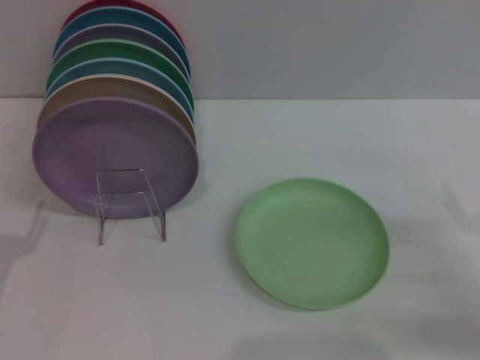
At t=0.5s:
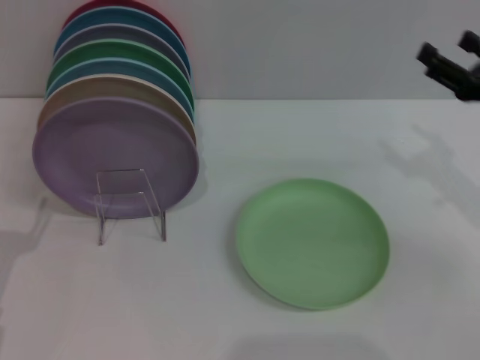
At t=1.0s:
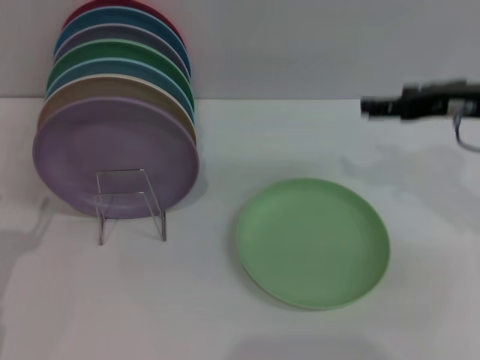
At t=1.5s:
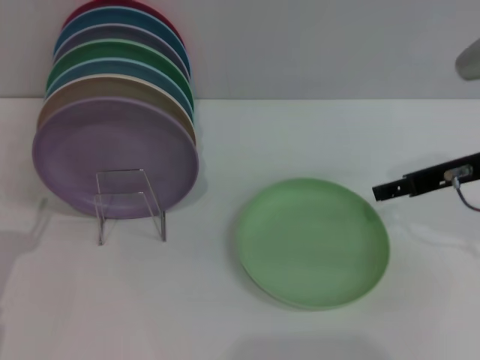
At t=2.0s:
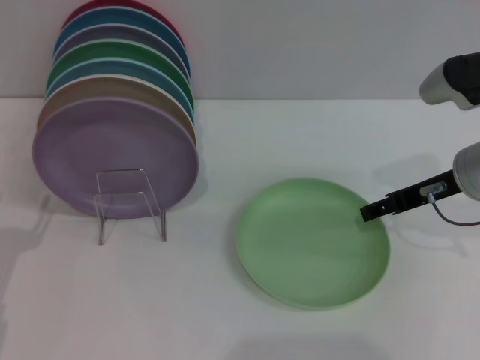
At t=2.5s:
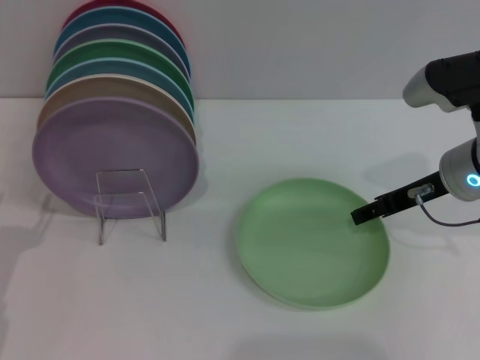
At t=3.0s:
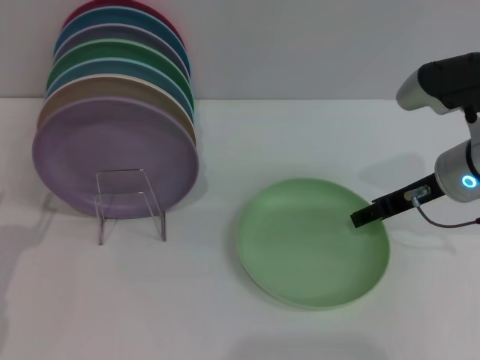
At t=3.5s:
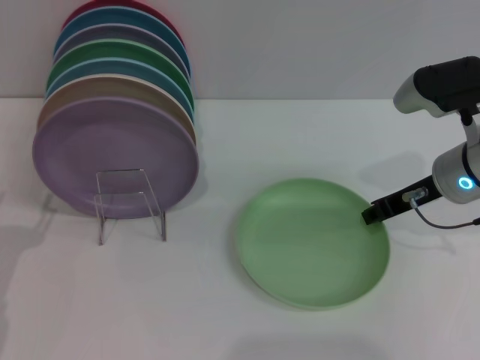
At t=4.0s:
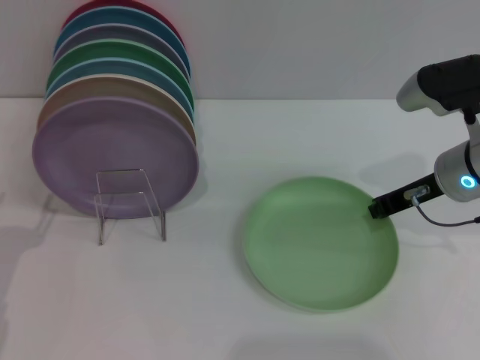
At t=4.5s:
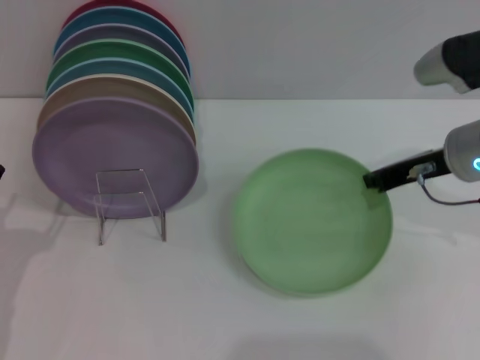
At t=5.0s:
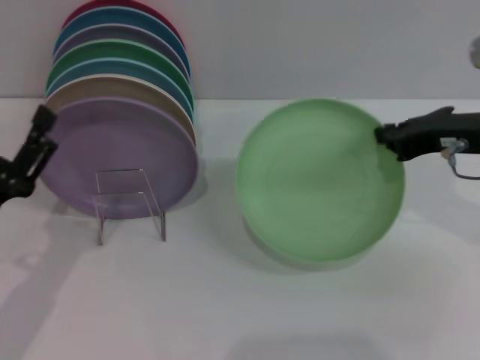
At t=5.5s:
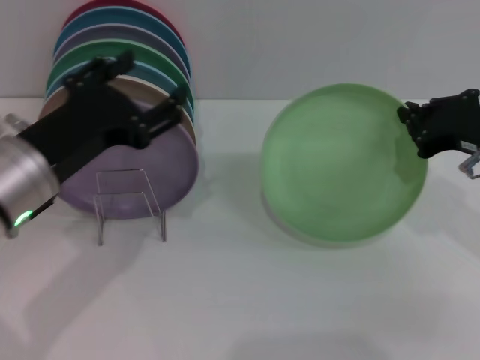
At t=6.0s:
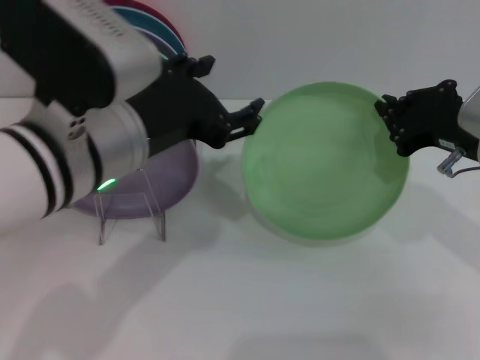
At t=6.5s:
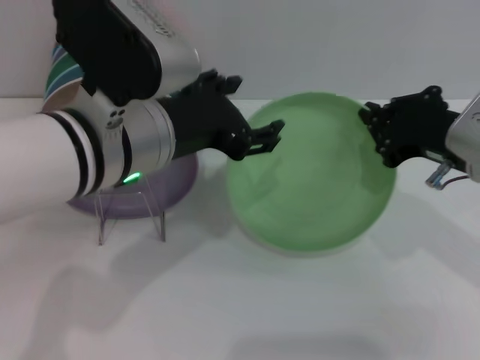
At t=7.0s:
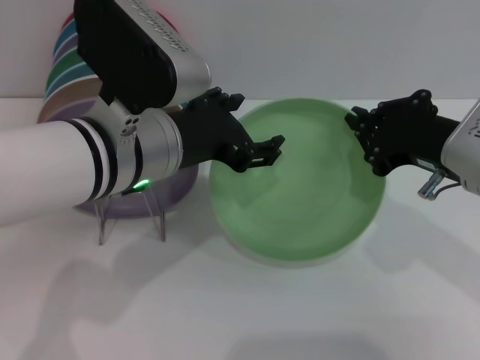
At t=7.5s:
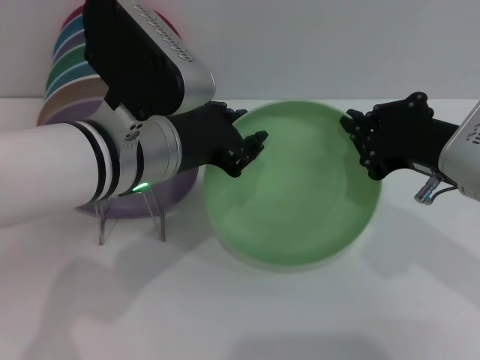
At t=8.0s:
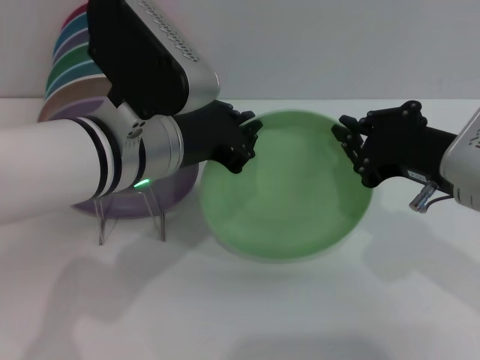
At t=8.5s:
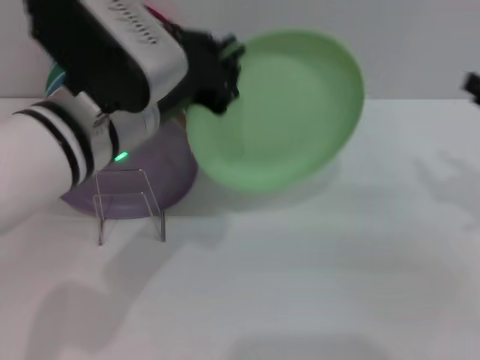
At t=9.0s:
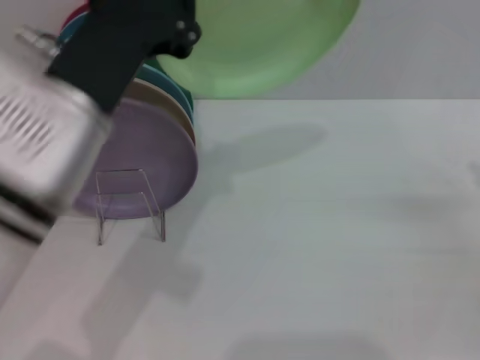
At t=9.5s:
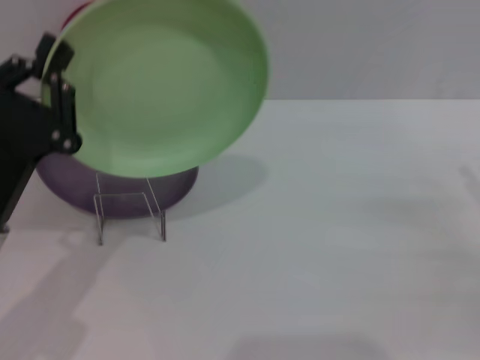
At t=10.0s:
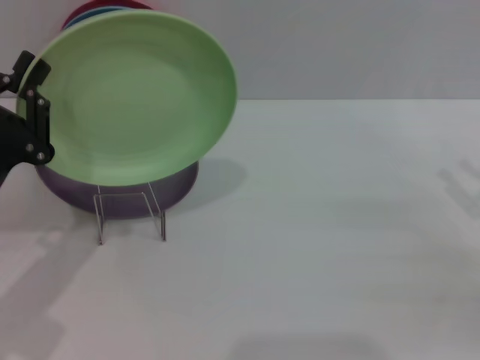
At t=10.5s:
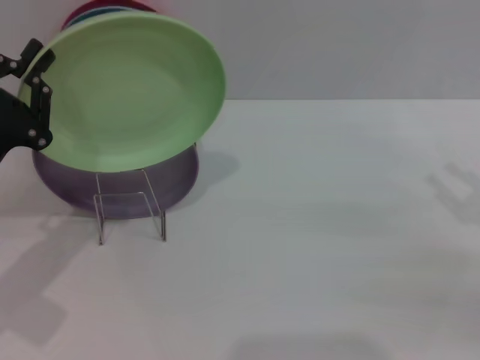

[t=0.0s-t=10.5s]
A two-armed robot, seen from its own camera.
Task of the whole recording: Grip the plate with one hand, pass it to the other, then set it on the shelf.
Step, t=0.0s to t=5.0s: Pick up the plate with the right gripper.
Step, t=5.5s to t=8.0s: Pass the plate from the right gripper to the left gripper.
t=0.0s to t=2.0s: The right gripper goes about 20 cm forward, to the left and upward.
t=2.0s to t=4.0s: The right gripper closes its fingers.
t=4.0s to t=6.5s: The left gripper heads to the right and upward, covering roughly 25 cm. Meanwhile the right gripper shifts approximately 5 cm backward.
t=6.5s to t=8.5s: The right gripper shifts about 10 cm to the right, and opens up; the left gripper closes up.
t=8.5s to t=10.5s: The left gripper is displaced to the left and downward by about 20 cm, while the right gripper opens.

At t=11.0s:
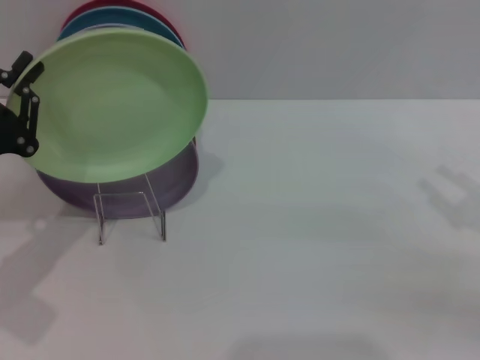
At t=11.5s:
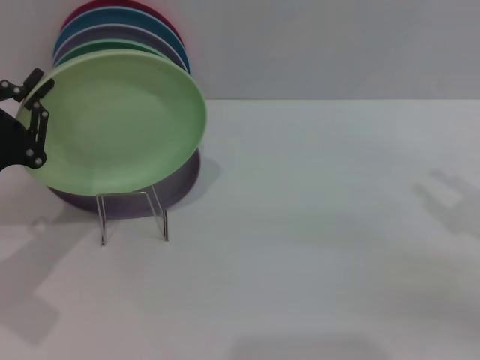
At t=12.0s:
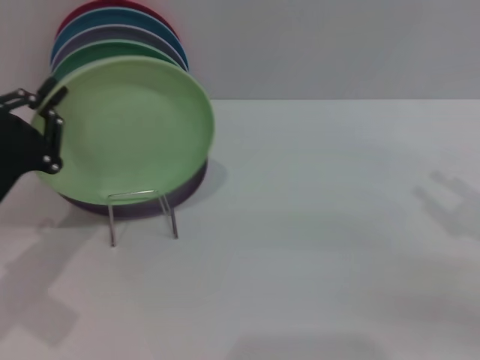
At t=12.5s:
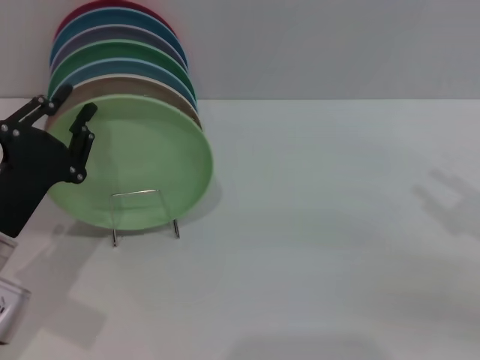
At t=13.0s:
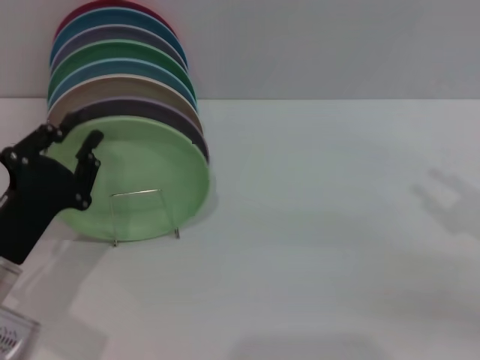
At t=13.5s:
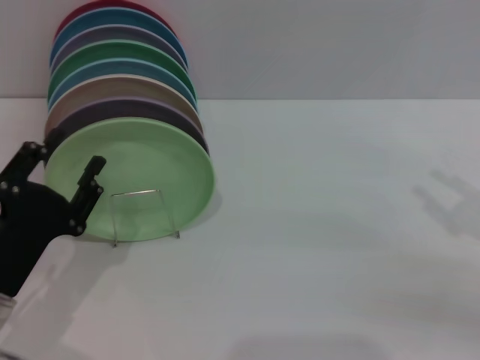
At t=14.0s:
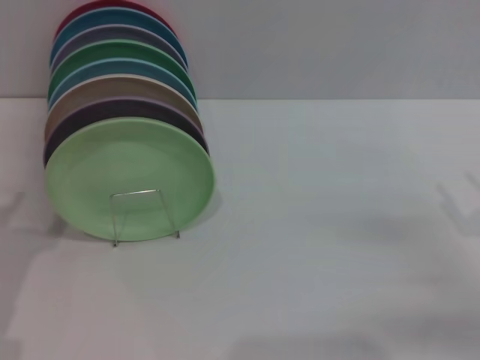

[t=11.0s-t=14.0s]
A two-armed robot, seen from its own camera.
Task of the whole recording: Grip the plate with one hand, pass it to the other, then set it on the shelf.
Step, t=11.0s to t=13.5s: Place the plate on the shelf with the left gripper.
t=11.0s to t=12.5s: The left gripper changes place by approximately 5 cm.
t=12.5s to t=14.0s: The left gripper heads backward, covering some 5 cm, and opens up. The right gripper heads downward, covering about 5 cm.

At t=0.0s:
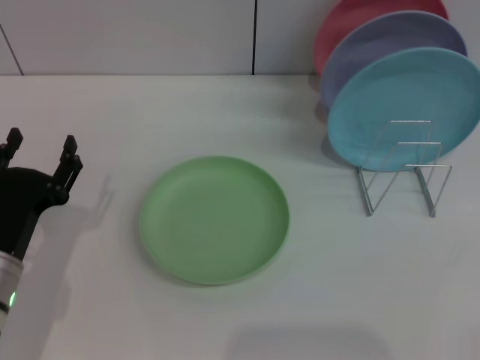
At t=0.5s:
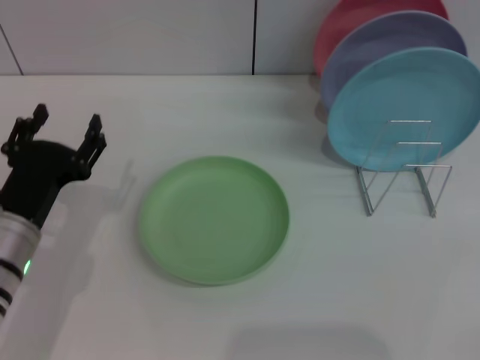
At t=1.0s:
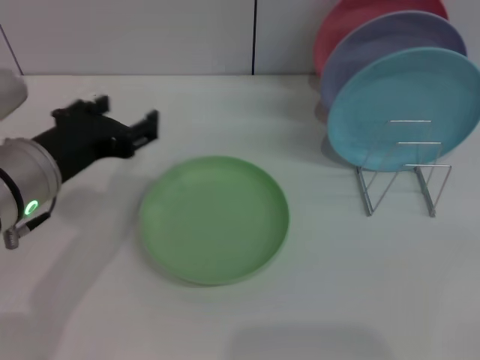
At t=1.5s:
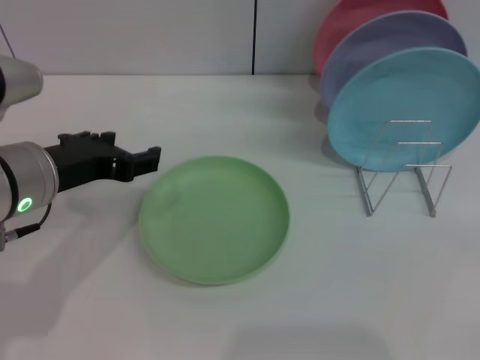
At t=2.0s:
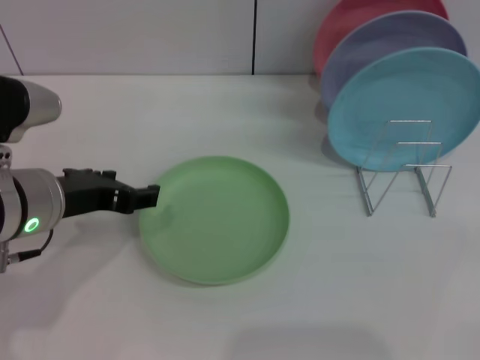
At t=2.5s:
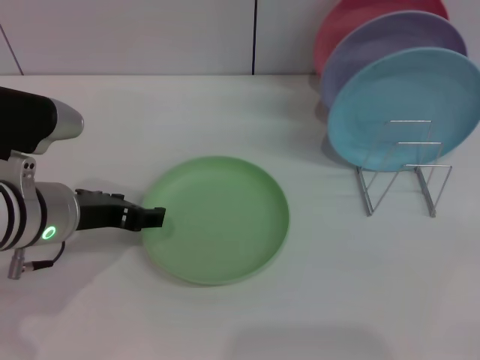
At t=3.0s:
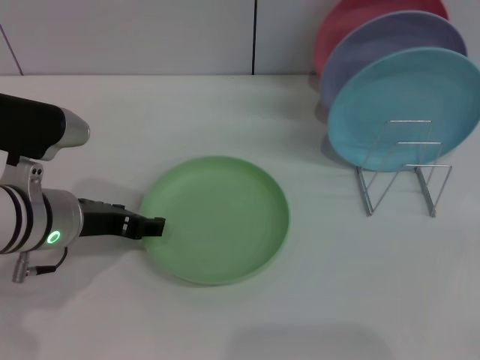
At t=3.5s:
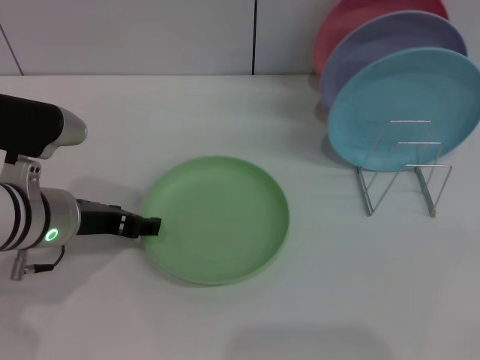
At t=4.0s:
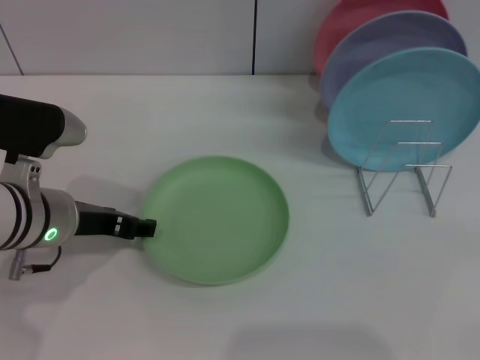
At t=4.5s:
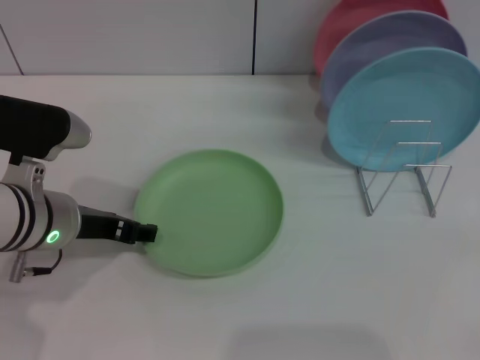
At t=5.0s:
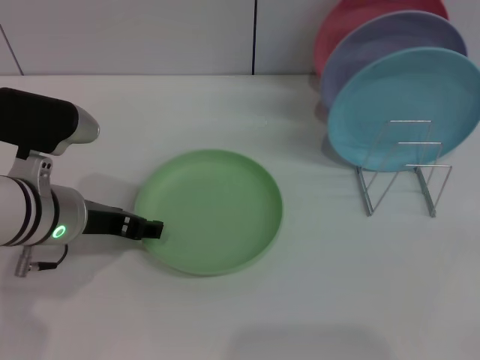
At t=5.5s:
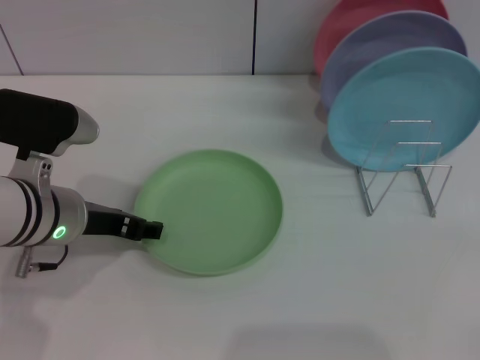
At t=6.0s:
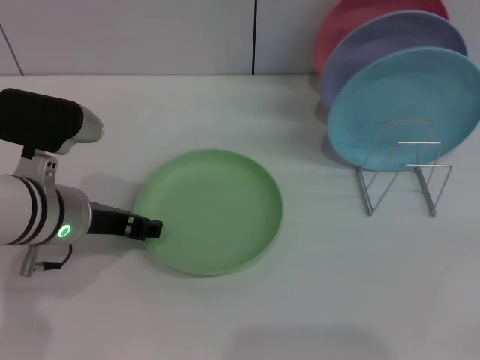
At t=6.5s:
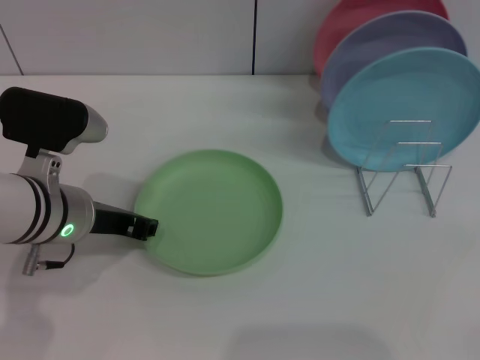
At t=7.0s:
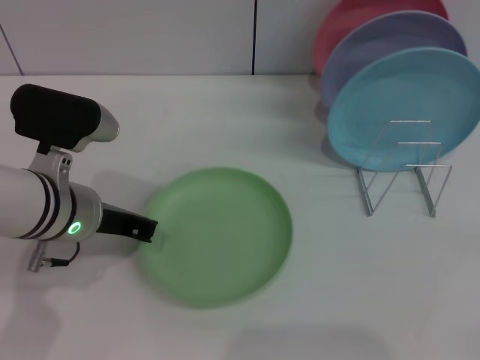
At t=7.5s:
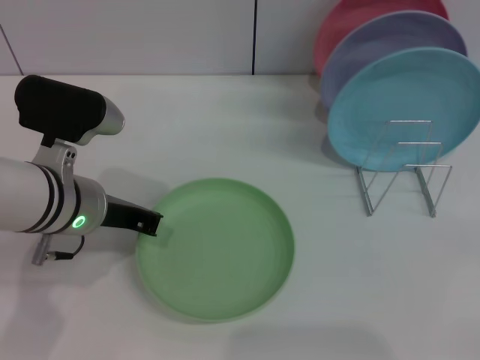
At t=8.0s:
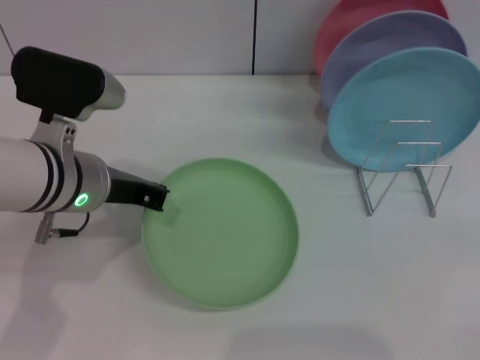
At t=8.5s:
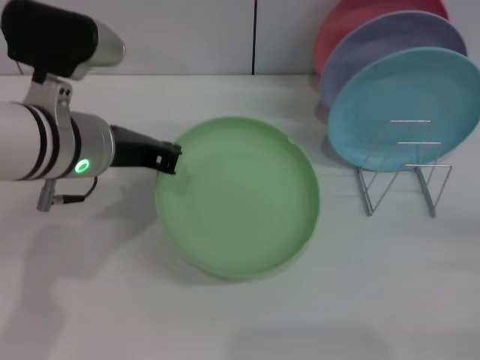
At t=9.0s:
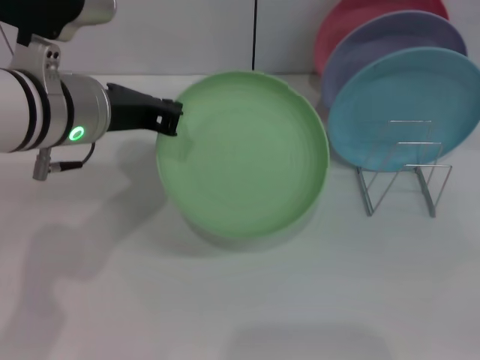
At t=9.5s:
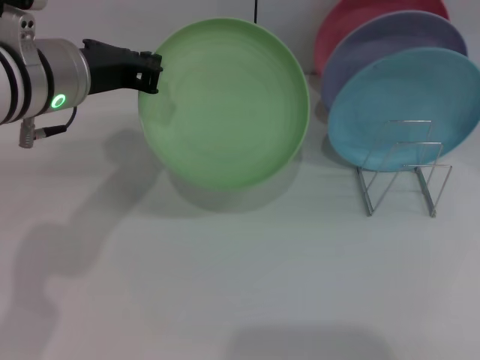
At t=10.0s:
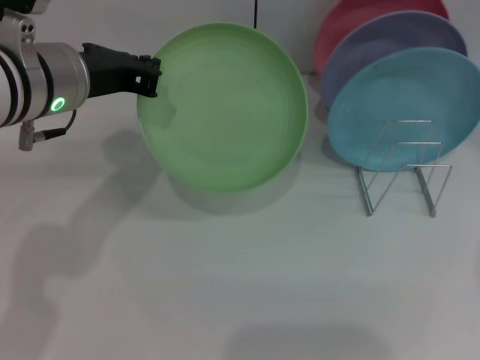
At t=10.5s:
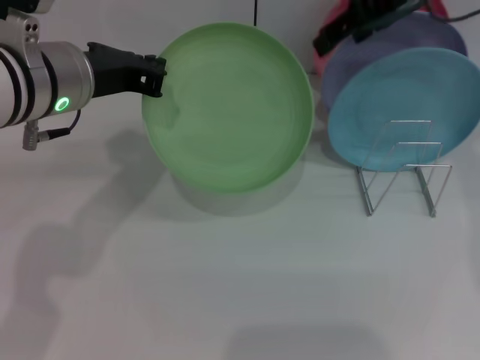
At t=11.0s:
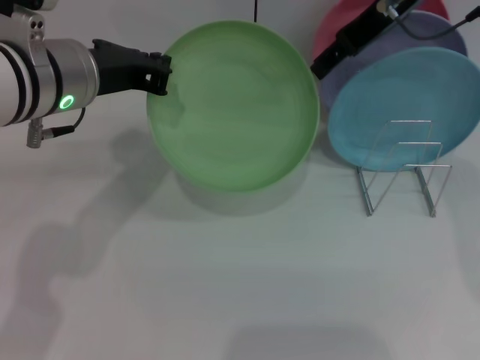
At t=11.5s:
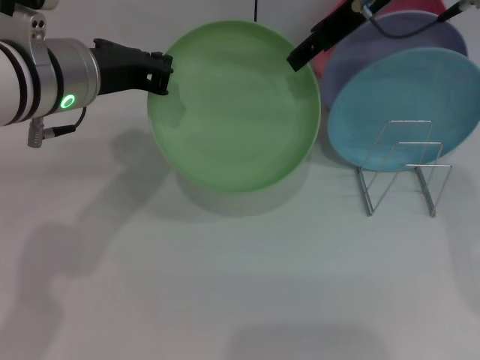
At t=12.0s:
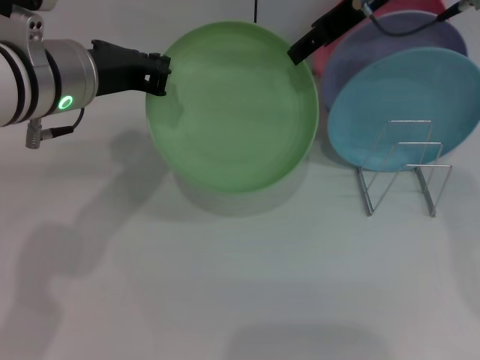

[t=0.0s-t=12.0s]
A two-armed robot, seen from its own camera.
Task of the whole recording: Grip the plate with one hand, pass it to the other, then set it on the shelf.
Step, t=0.0s to t=10.5s: Pick up the plate with the left gripper.
t=0.0s to t=2.0s: The left gripper goes roughly 10 cm upward.
t=2.0s to t=4.0s: There are only small adjustments of the grippers.
t=4.0s to t=6.0s: Both grippers stay about where they are.
t=6.0s to t=8.0s: The left gripper closes.
t=8.0s to t=10.0s: The left gripper travels upward by roughly 5 cm, while the right gripper is displaced upward, forward and to the left by some 40 cm.
t=10.0s to t=12.0s: The right gripper goes roughly 10 cm to the left and downward.
